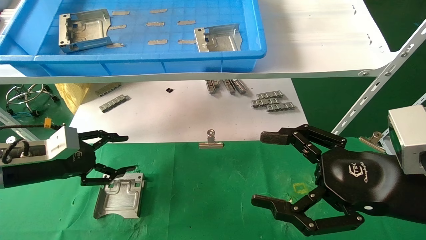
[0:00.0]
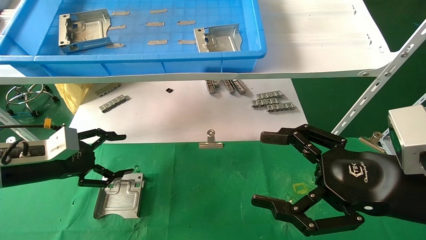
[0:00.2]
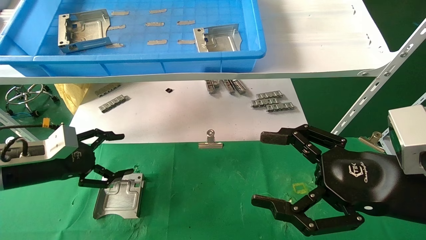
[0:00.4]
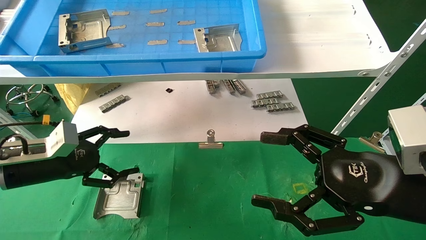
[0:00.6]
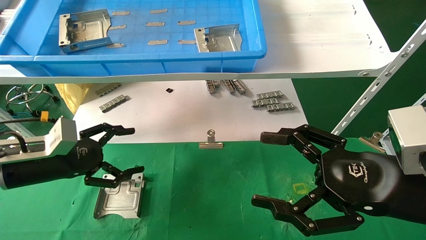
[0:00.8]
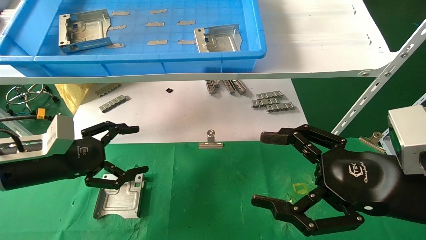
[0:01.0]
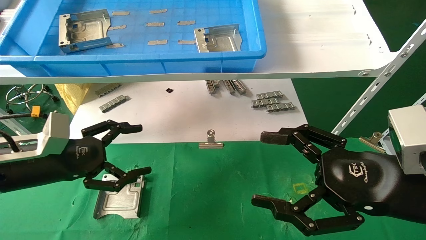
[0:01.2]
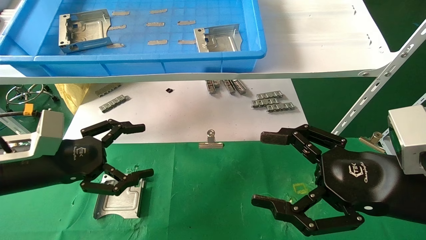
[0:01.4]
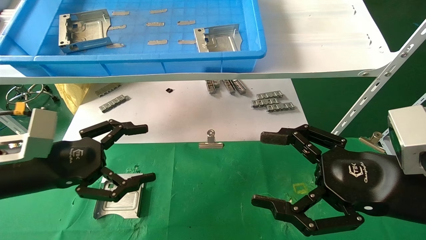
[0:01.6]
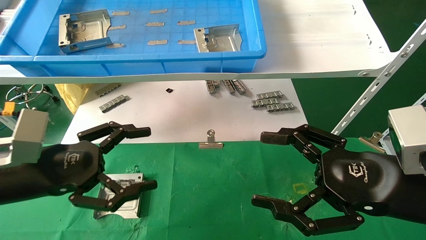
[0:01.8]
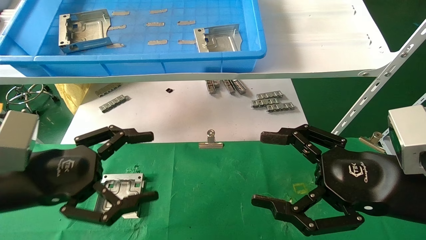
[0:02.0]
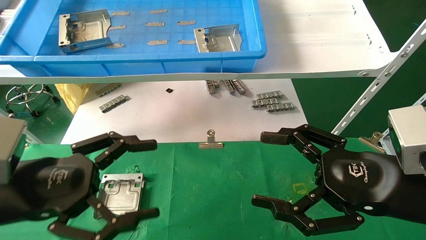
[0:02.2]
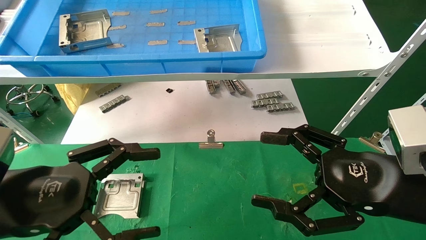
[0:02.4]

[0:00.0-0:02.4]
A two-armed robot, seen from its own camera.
Task of the whole recording: use the mechanical arm to pick up the parts and place them on the table.
0:00.0 to 0:01.2: The left gripper ends up about 5 cm from where it was, and opens its fingers.
0:01.2 to 0:02.4: The left gripper is displaced backward by some 10 cm.
